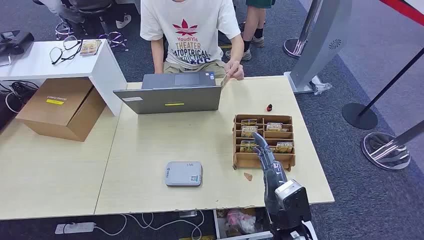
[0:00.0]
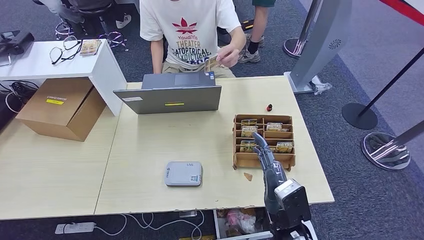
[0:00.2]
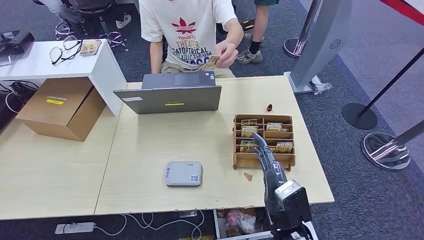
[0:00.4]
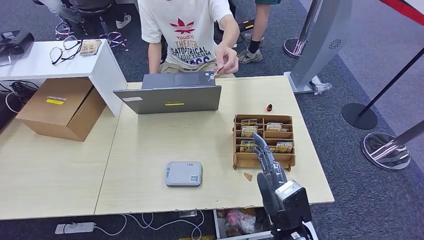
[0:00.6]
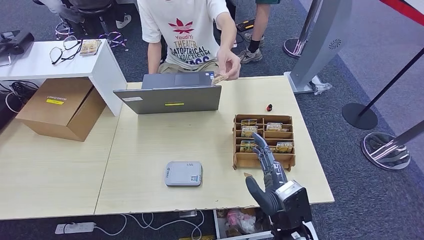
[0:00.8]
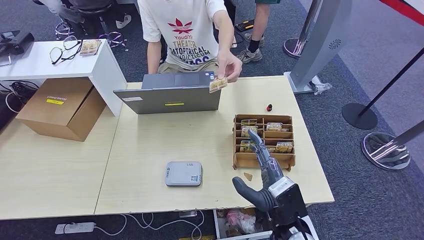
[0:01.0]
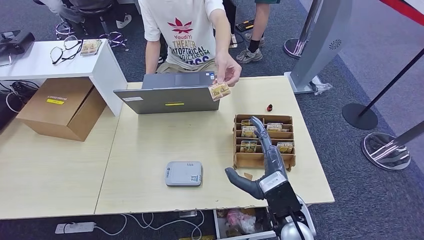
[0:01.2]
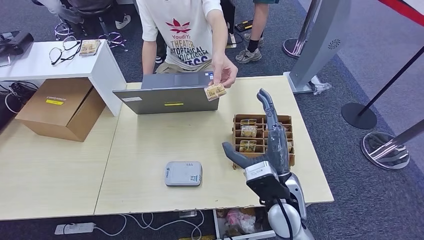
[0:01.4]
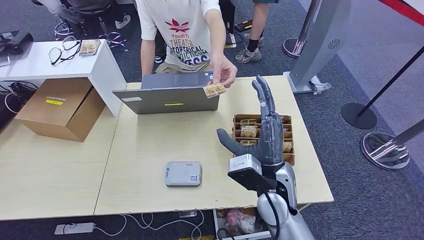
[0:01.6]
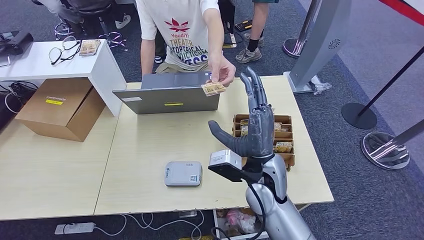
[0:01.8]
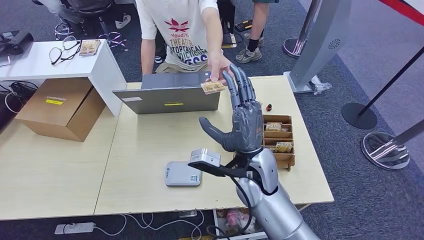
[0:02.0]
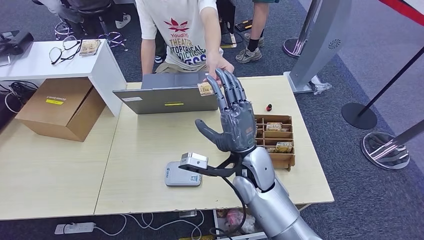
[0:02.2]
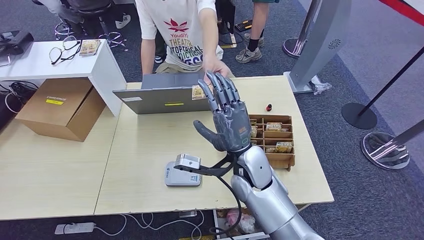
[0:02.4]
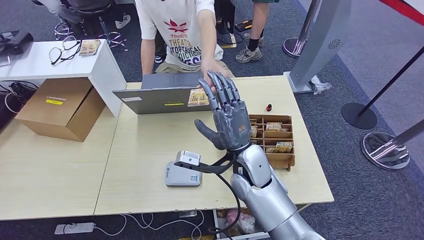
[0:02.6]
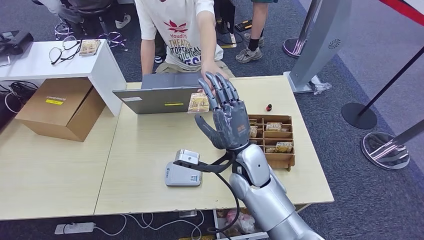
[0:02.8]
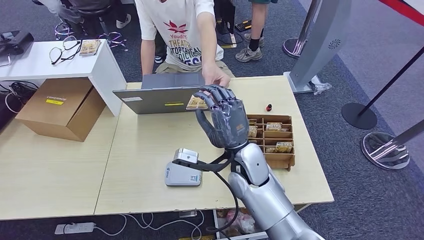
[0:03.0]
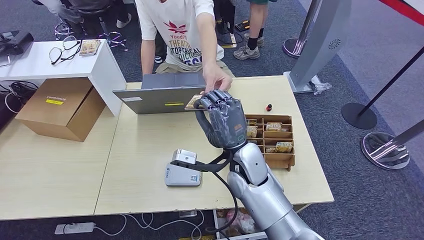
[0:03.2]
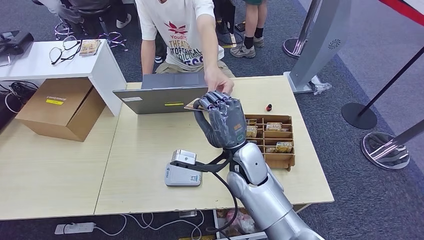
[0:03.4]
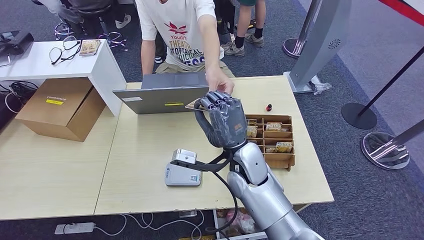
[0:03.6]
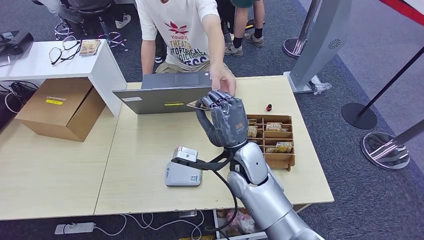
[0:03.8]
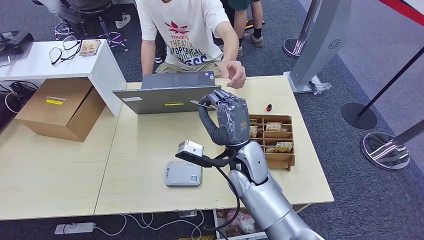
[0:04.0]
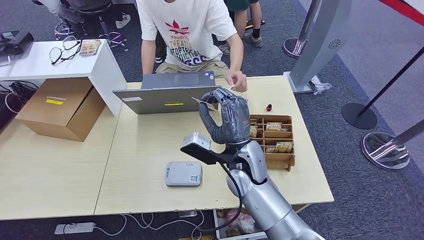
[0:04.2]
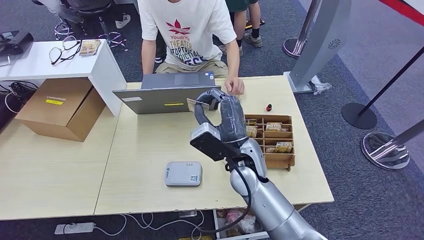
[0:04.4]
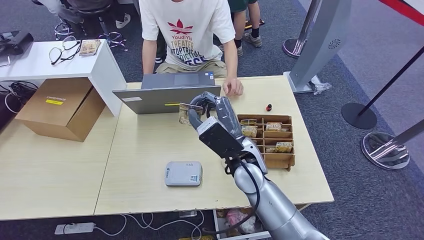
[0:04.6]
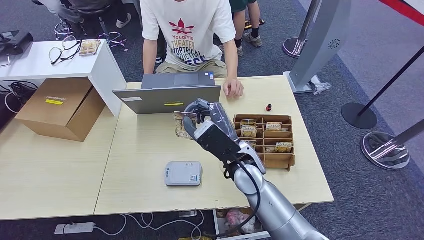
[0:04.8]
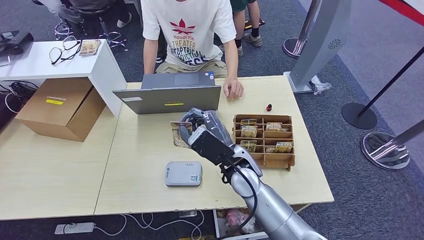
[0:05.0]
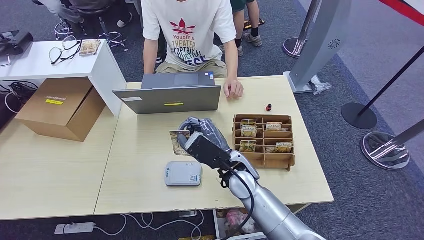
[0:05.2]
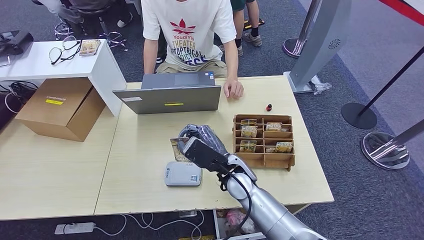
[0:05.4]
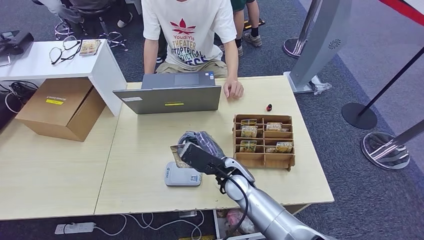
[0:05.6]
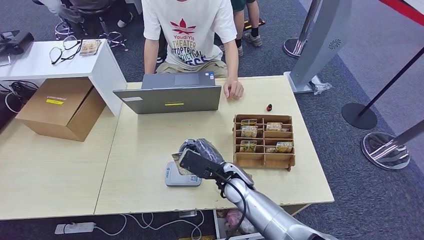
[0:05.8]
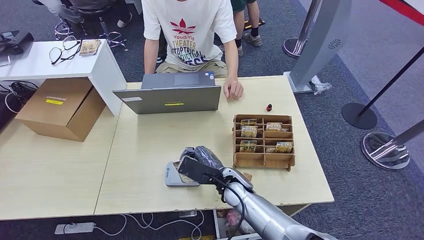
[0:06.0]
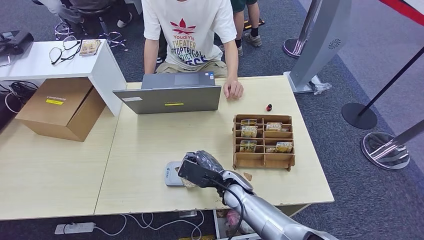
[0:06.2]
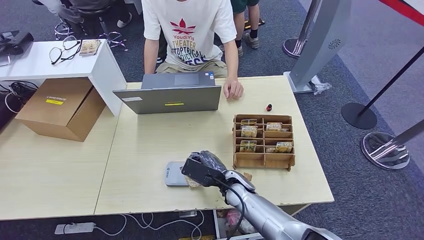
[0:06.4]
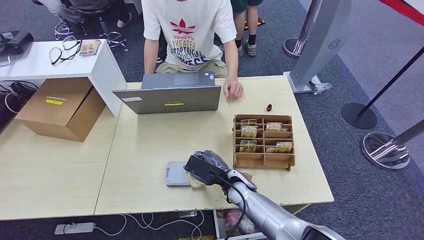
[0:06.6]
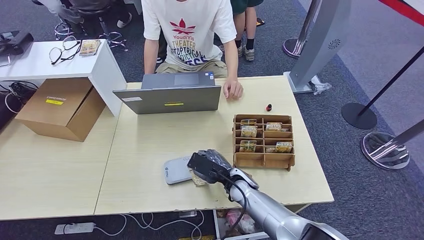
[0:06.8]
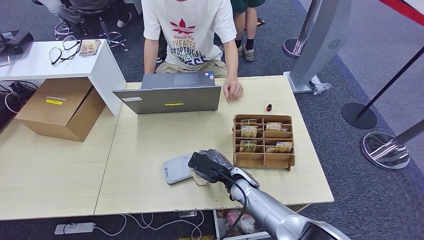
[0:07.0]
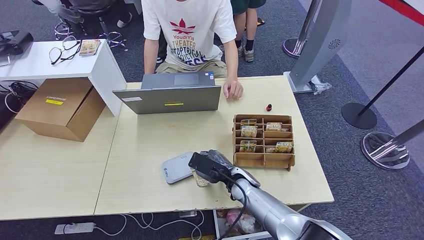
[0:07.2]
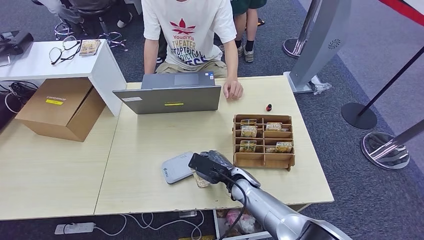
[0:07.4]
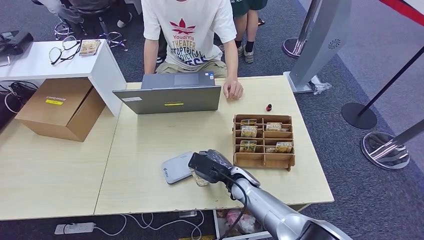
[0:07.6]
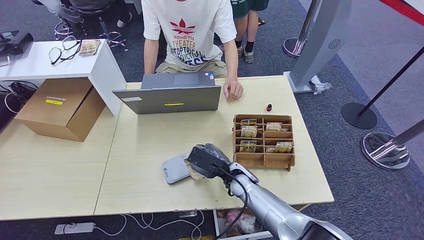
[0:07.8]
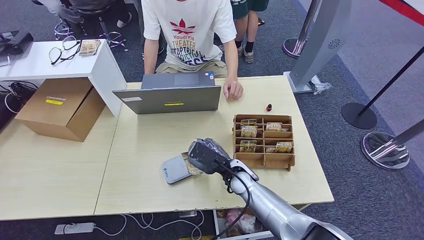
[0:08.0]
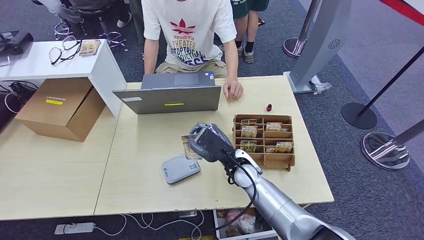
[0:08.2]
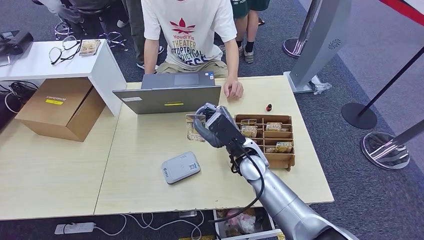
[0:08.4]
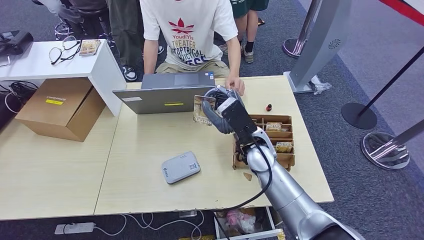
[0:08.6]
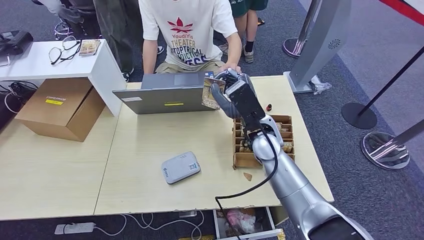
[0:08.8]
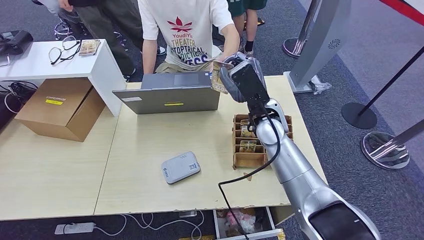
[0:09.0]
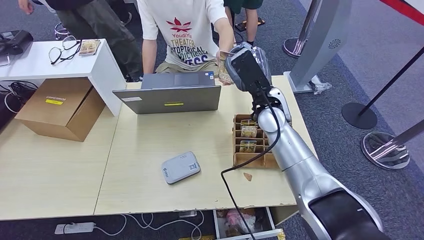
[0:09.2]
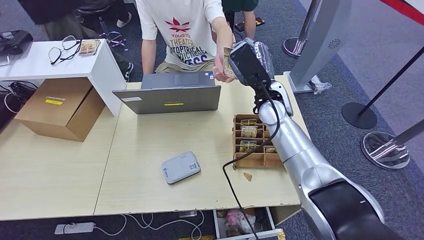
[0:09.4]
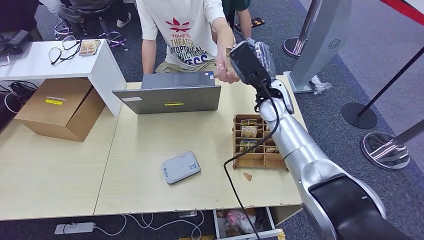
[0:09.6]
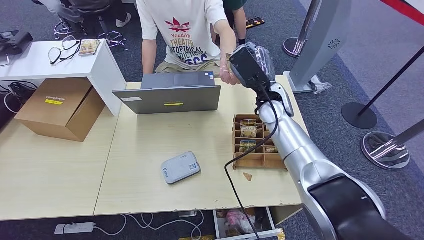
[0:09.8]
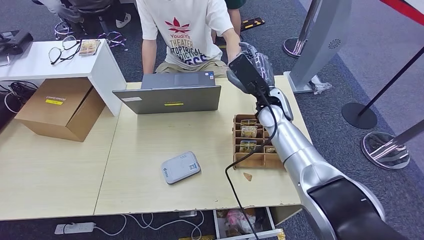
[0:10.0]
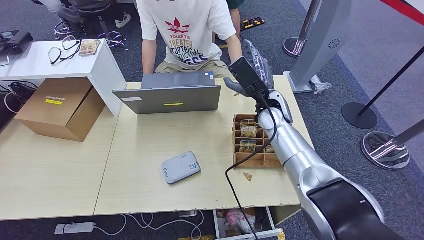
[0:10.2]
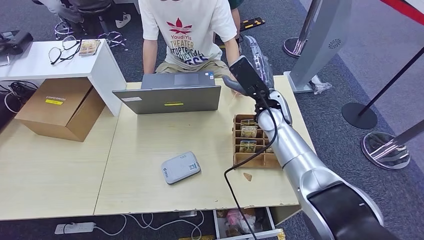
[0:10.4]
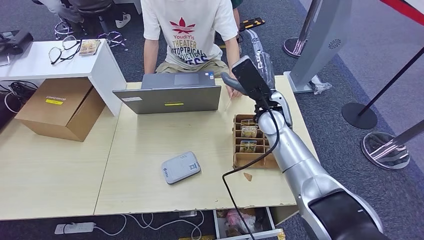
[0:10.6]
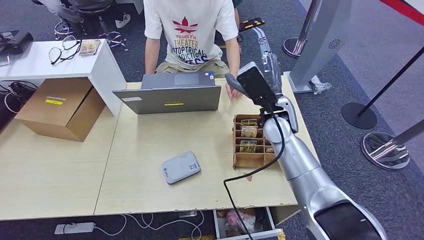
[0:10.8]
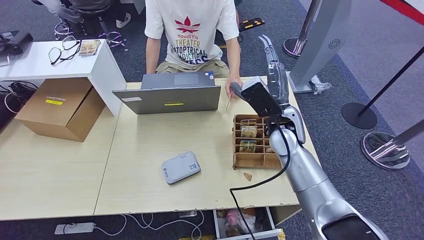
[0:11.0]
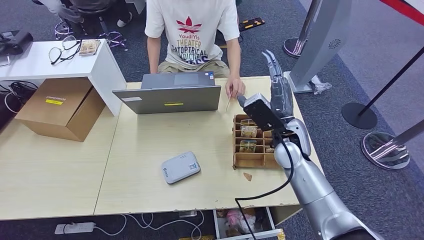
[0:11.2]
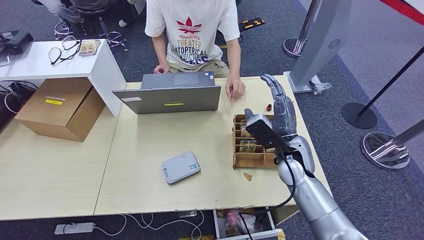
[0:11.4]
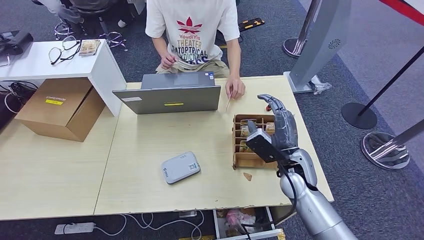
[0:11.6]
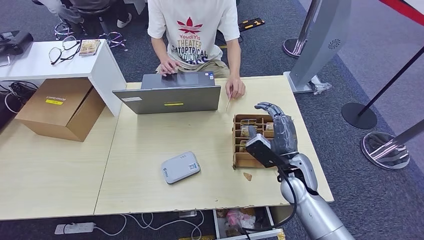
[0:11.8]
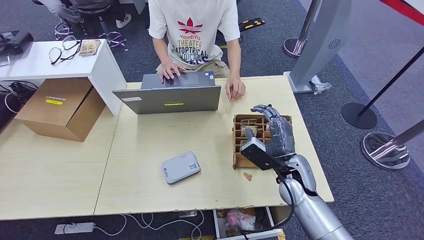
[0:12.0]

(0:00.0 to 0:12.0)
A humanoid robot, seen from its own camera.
Step, 0:00.0 - 0:04.2: Take the ID card from the person's hand.
Step, 0:04.4 - 0:07.4: Place the ID card on the card reader.
Step, 0:07.6 - 0:10.8: Hand the ID card to the person.
0:01.6 - 0:03.0: The right hand goes some 5 cm forward.
0:04.4 - 0:06.0: The right hand is displaced downward by some 10 cm.
0:06.0 - 0:07.6: The hands move only a little.
0:07.6 - 0:09.0: The right hand is displaced upward and forward by roughly 20 cm.
0:09.0 - 0:10.4: The hands move only a little.
0:10.4 - 0:12.0: The right hand moves backward and downward, approximately 15 cm.

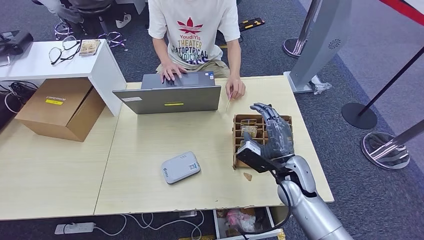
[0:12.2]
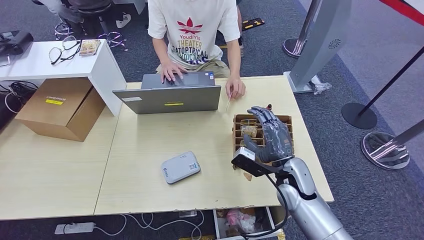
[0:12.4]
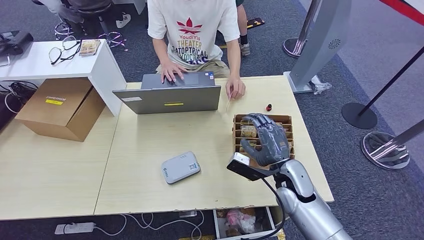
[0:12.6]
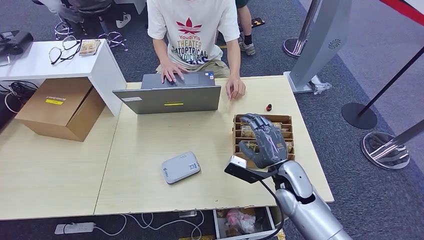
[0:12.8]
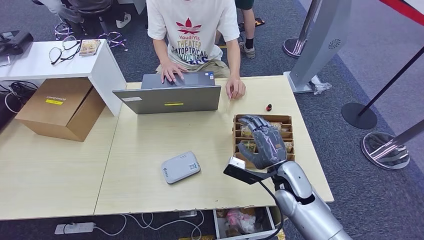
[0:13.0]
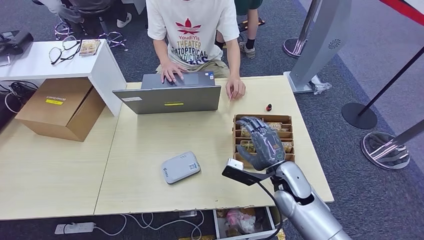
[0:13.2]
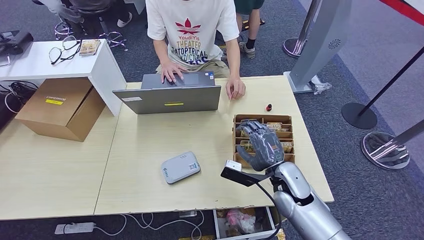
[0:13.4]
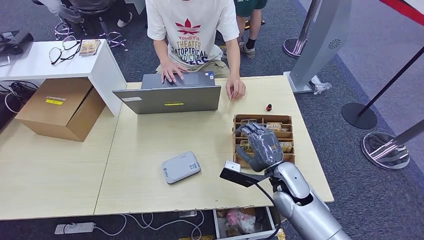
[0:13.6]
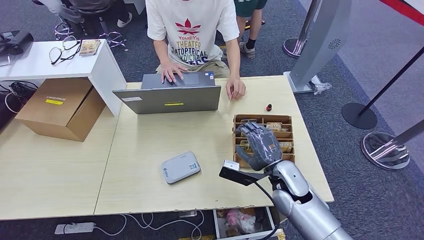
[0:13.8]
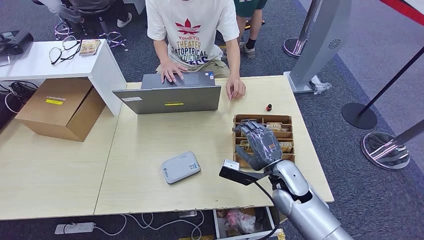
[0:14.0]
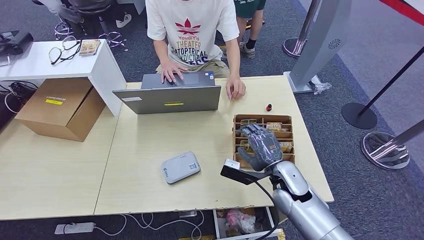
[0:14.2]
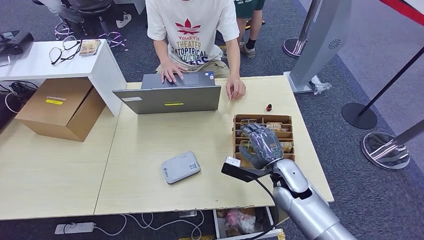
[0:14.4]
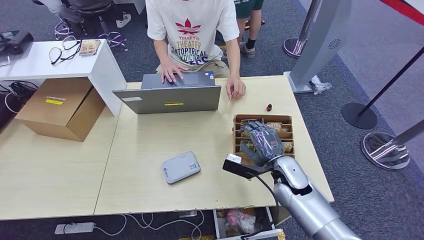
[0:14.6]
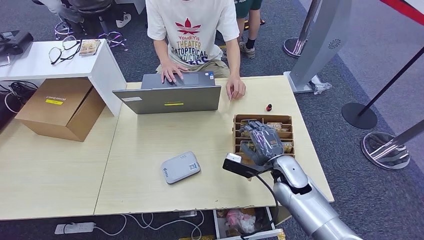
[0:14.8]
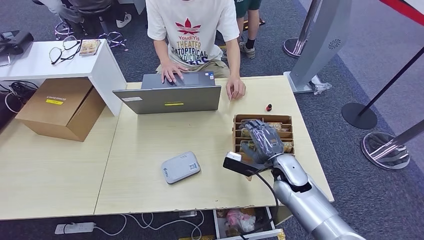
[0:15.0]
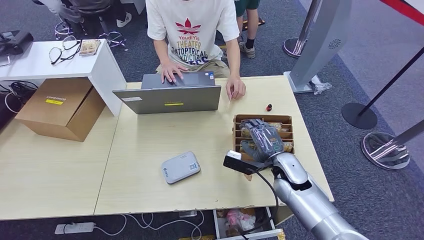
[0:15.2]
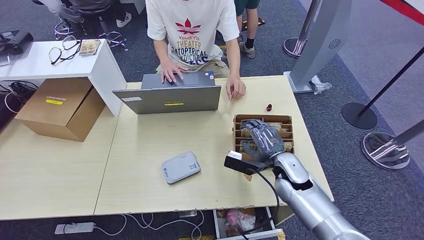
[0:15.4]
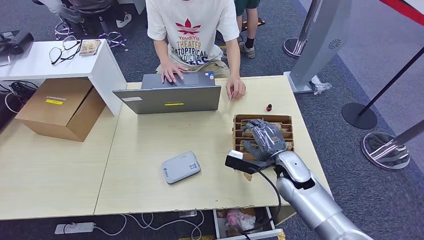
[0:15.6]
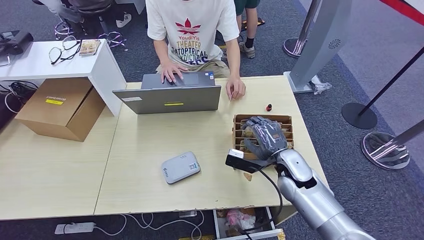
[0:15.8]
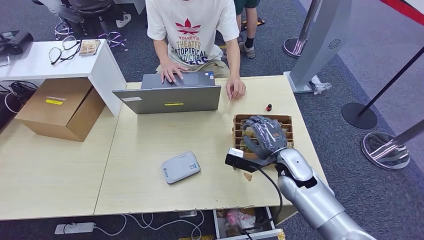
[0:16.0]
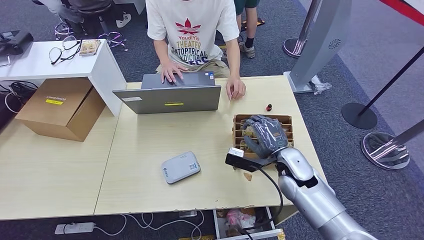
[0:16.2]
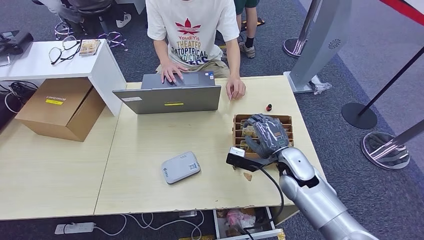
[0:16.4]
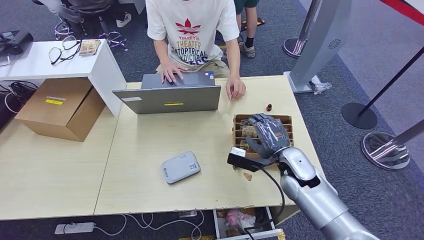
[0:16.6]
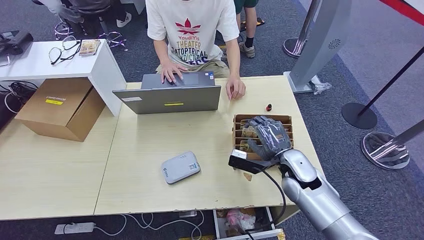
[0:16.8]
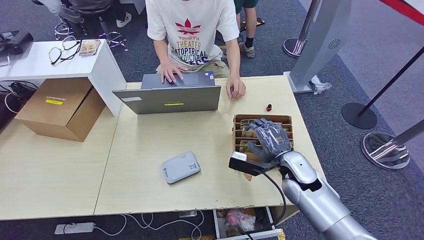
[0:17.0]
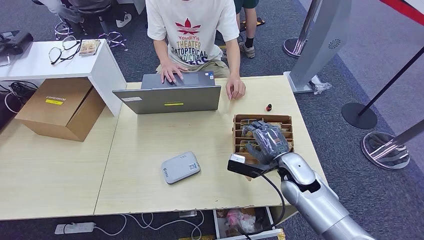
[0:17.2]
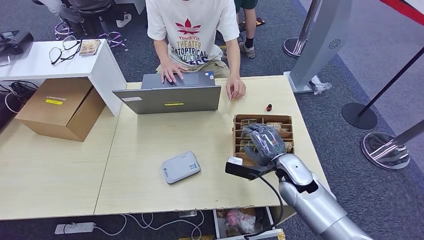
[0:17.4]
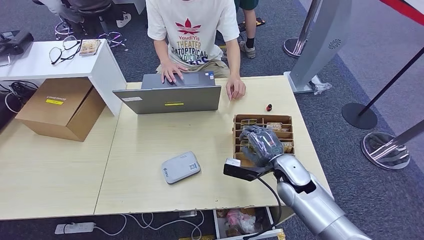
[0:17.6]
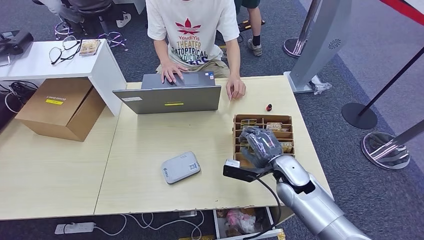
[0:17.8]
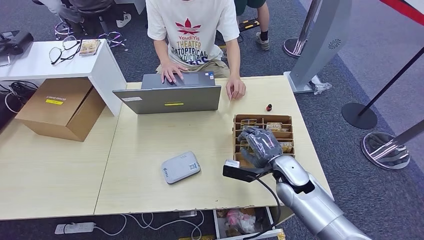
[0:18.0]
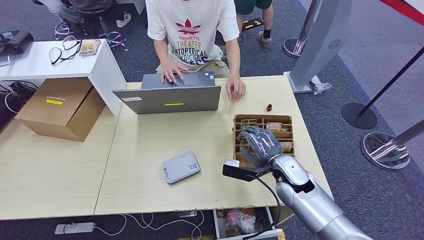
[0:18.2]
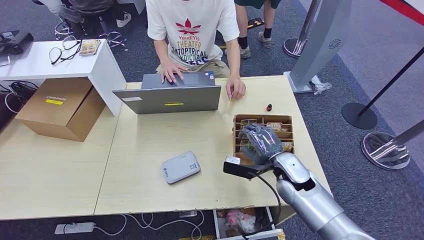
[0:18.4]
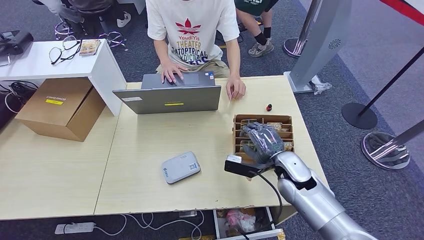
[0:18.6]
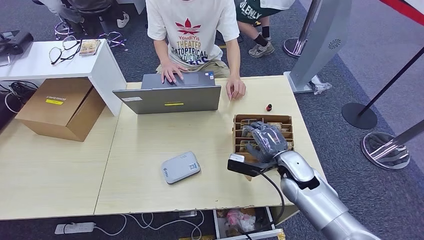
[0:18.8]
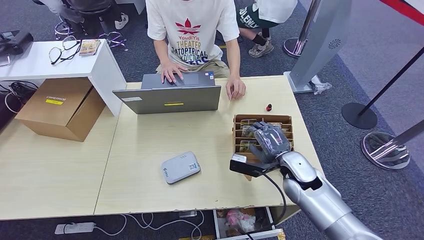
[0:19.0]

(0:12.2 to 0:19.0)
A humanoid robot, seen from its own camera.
0:12.2 - 0:13.6: The hands make only small movements.
0:13.6 - 0:19.0: There are only small adjustments of the hands.
